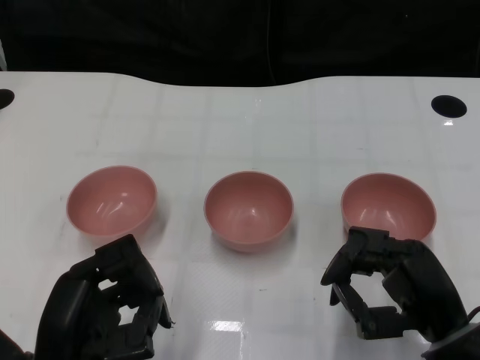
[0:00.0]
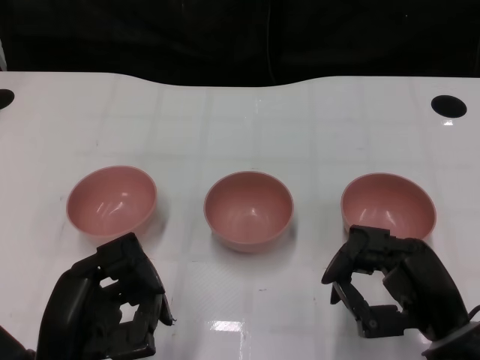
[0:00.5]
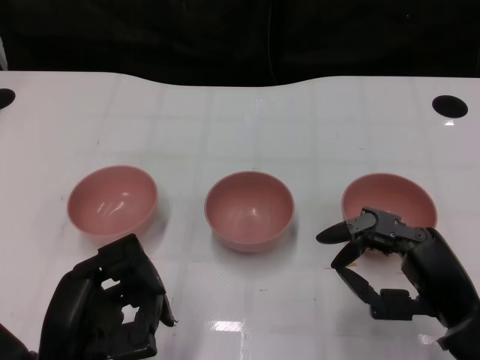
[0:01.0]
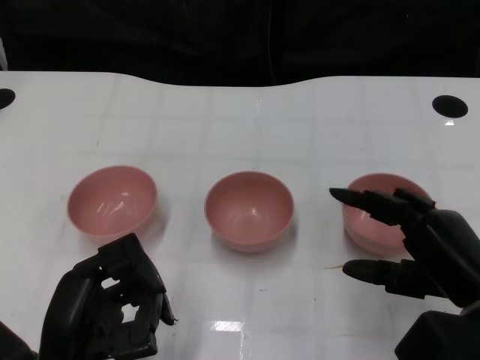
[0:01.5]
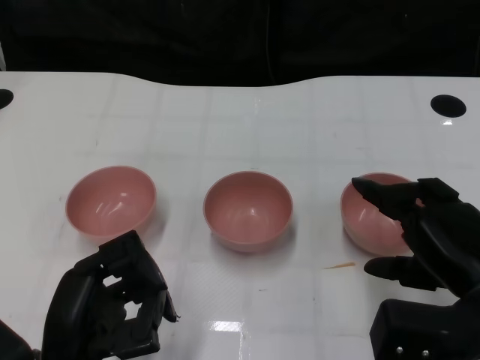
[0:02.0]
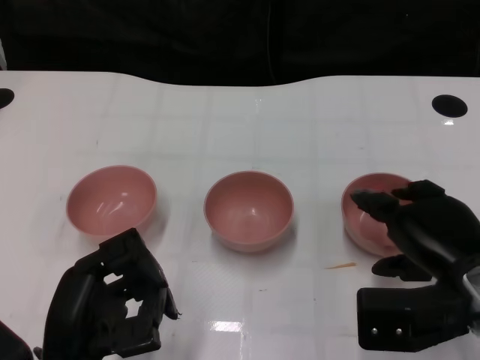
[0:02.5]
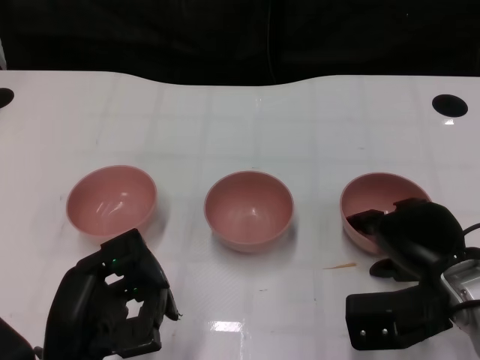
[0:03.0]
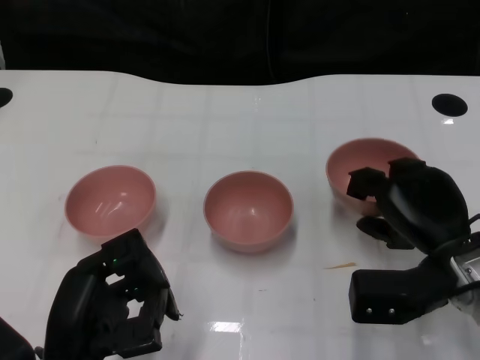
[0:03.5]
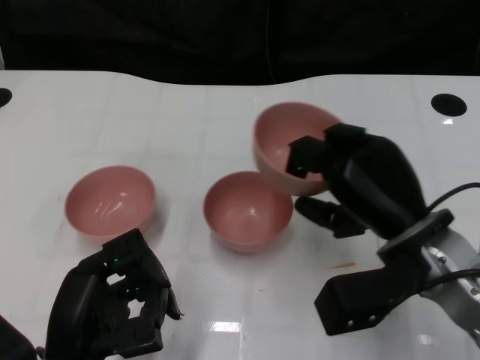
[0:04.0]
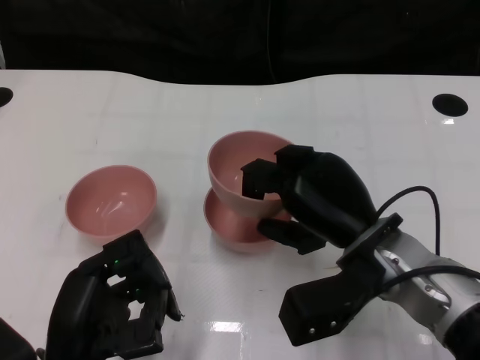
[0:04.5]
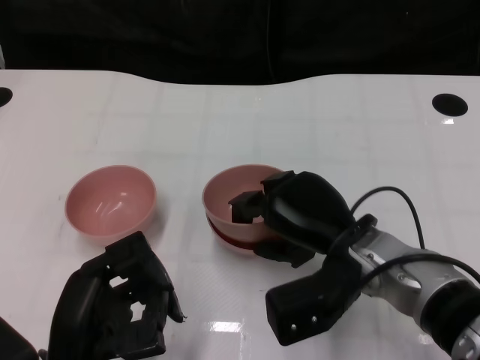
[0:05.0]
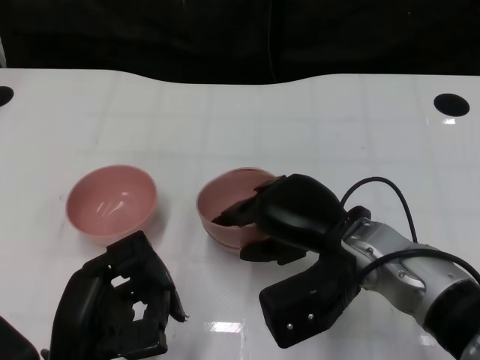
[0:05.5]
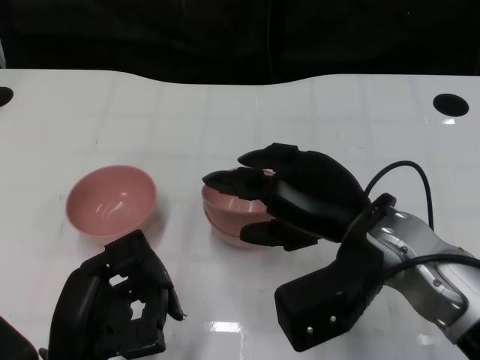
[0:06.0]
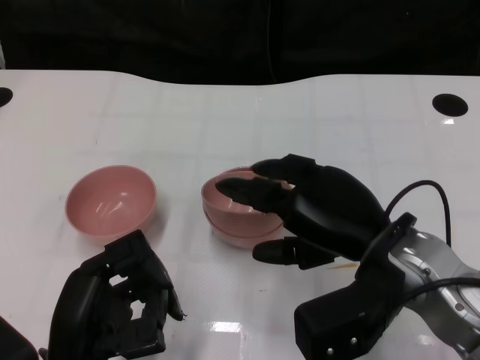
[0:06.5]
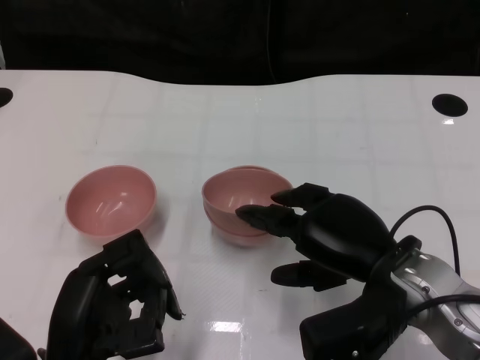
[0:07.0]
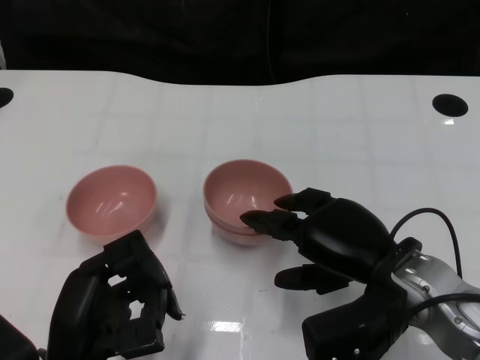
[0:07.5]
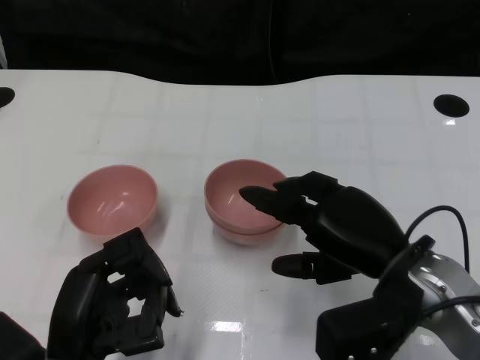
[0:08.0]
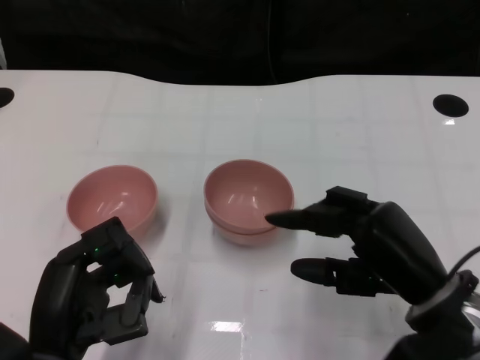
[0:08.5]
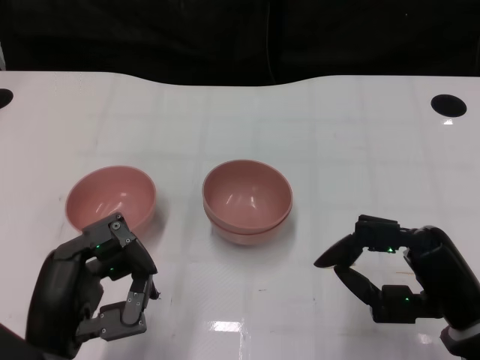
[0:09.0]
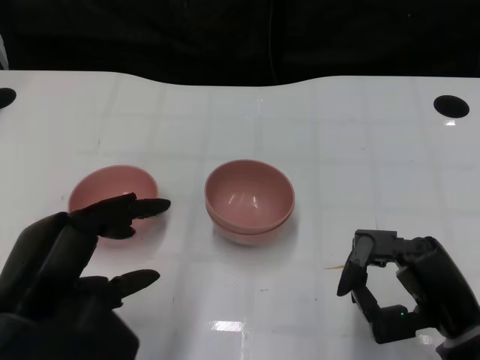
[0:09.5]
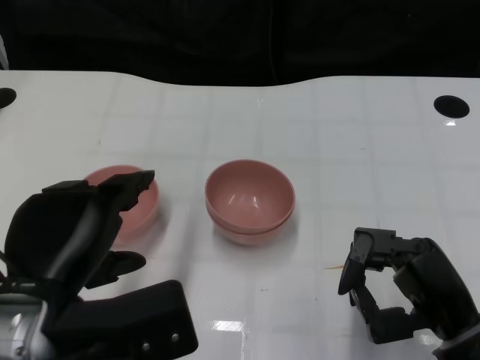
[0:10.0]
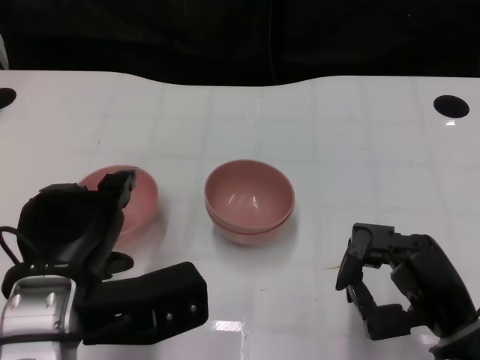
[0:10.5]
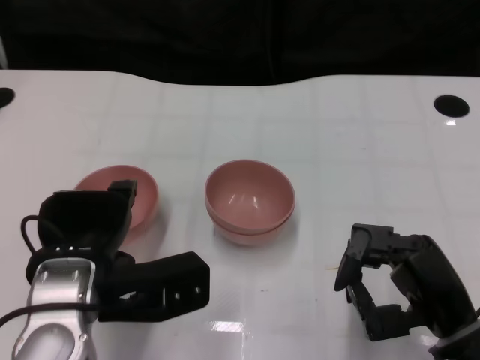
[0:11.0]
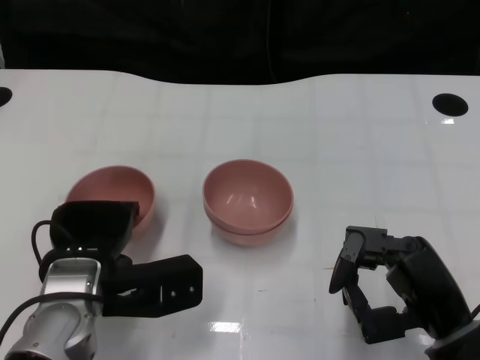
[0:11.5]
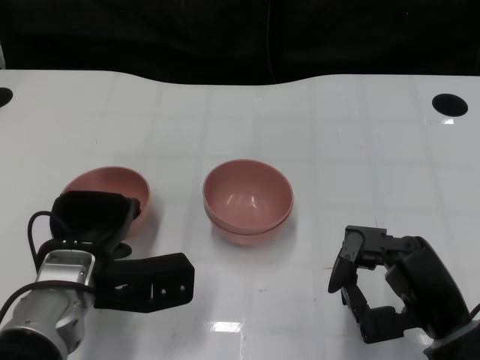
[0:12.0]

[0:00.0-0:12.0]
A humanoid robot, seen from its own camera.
Task of the whole recording: Pick up the bowl on one side of the table and place it on top of the middle bowl, then pick up the bowl on the other side of the table and place it on top of the middle bowls.
Step, 0:01.0 to 0:03.0: Grasp the bowl on the right with the right gripper.
Step, 0:04.0 to 0:06.5: Place the bowl on the right onto the bowl in the middle with right gripper.
0:02.0 to 0:04.0: The right hand shifts approximately 10 cm to the left and forward.
0:04.0 to 0:06.0: The right hand shifts by roughly 5 cm.
0:06.0 to 0:08.0: The right hand ends up some 5 cm from where it was.
0:08.0 to 0:10.0: The left hand heads upward, covering some 10 cm. The right hand travels backward and to the right by roughly 10 cm.
0:10.0 to 0:12.0: The left hand moves downward and forward, roughly 15 cm.

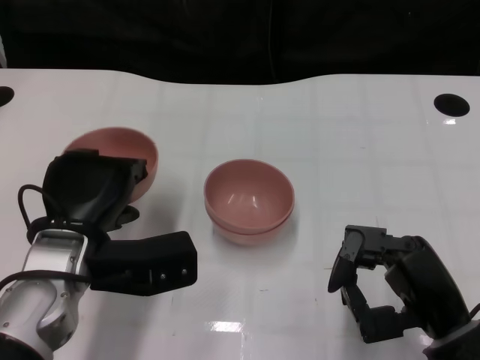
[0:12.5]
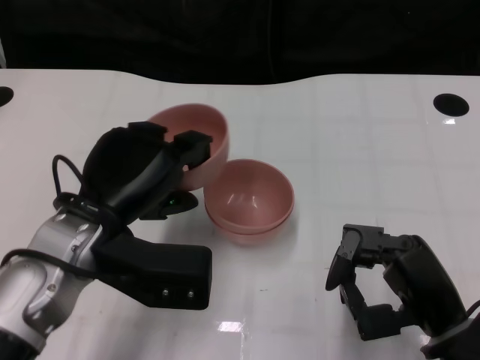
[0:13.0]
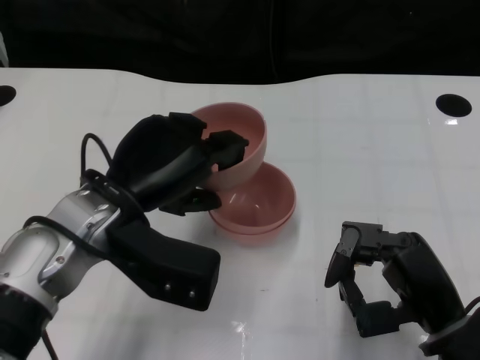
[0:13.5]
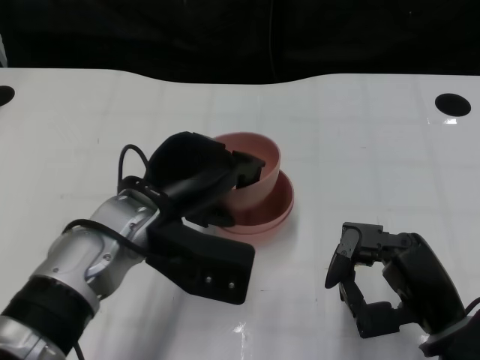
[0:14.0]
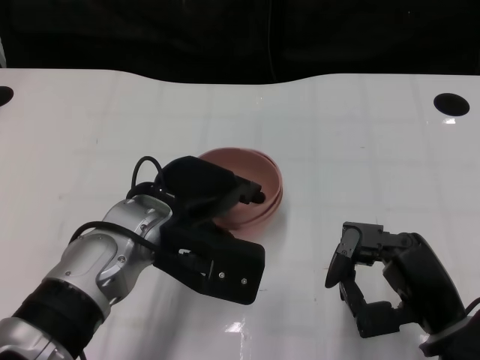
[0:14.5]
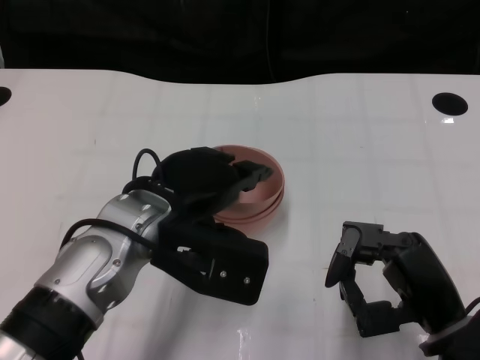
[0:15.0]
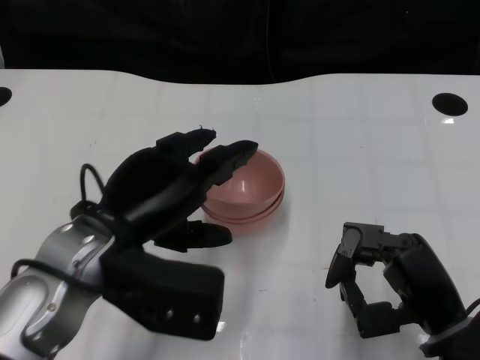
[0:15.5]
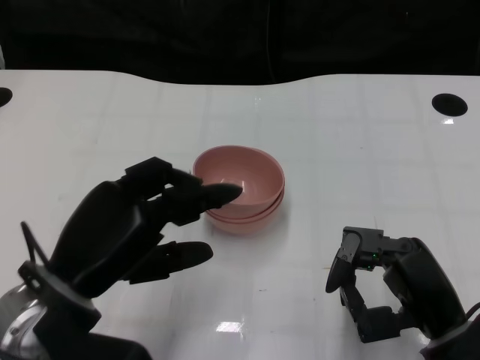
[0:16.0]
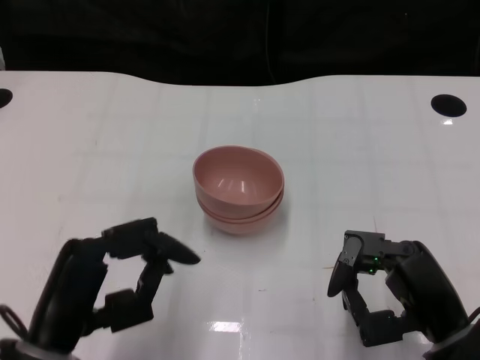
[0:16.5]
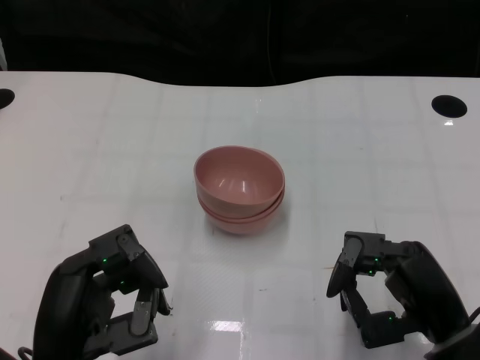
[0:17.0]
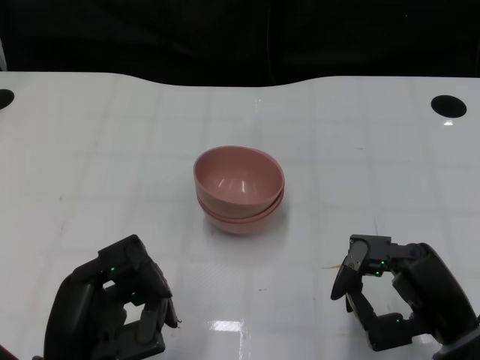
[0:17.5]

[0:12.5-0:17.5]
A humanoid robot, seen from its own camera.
Task of the whole recording: Pick up the bowl on one side of the table and place it on top of the middle bowl, then pick up the bowl on the other side of the table and place it on top of the middle bowls.
Step, 0:12.5 to 0:15.5: Place the bowl on the left onto the bowl in the middle with left gripper.
0:12.5 to 0:15.0: The left hand heads to the right, covering roughly 5 cm.
0:15.0 to 0:17.5: The left hand is displaced backward, to the left and downward by roughly 15 cm.

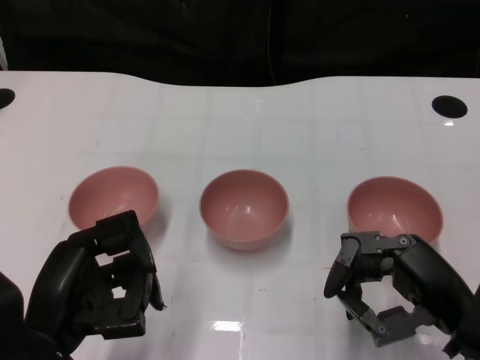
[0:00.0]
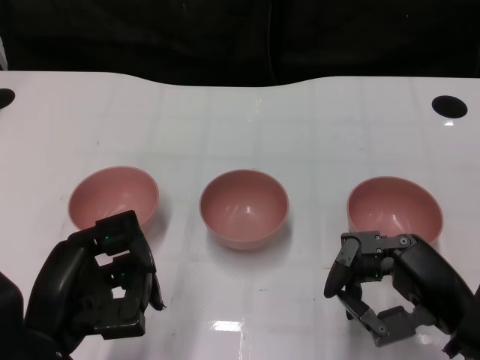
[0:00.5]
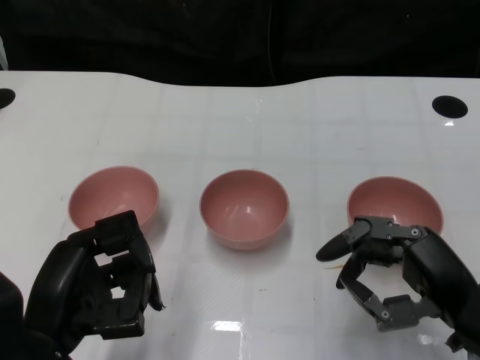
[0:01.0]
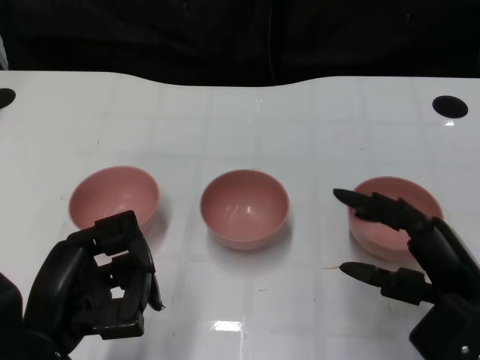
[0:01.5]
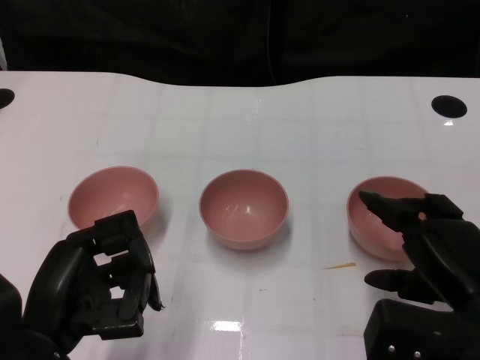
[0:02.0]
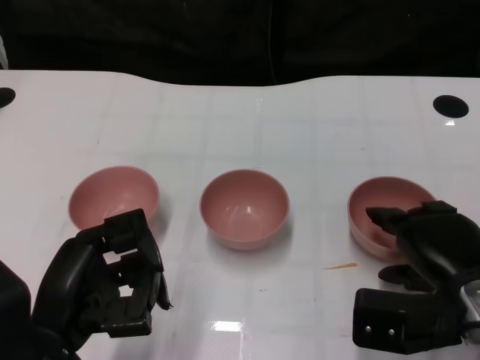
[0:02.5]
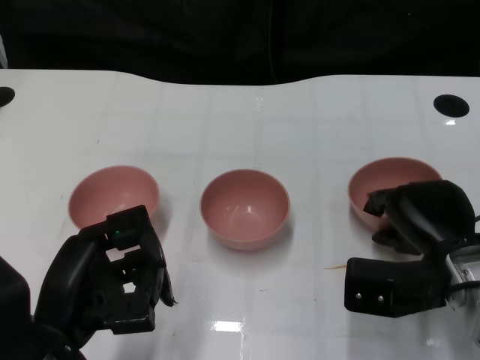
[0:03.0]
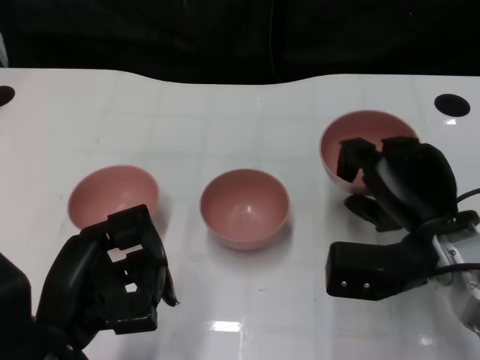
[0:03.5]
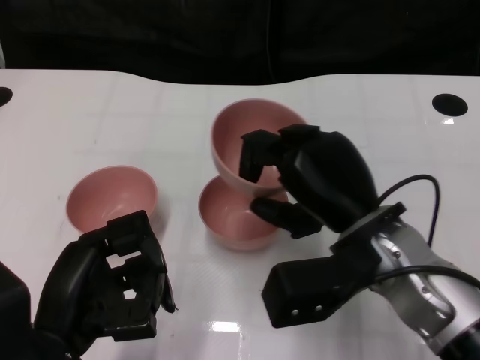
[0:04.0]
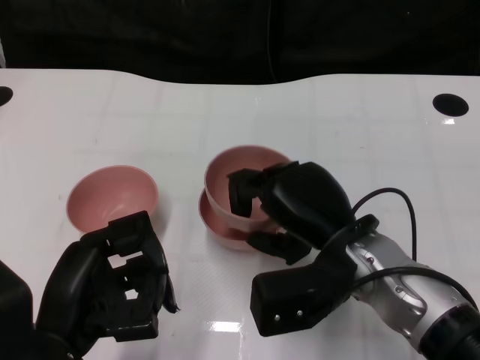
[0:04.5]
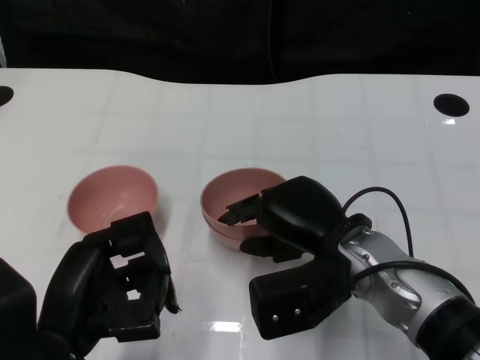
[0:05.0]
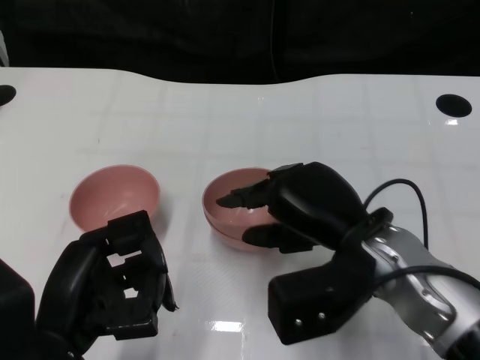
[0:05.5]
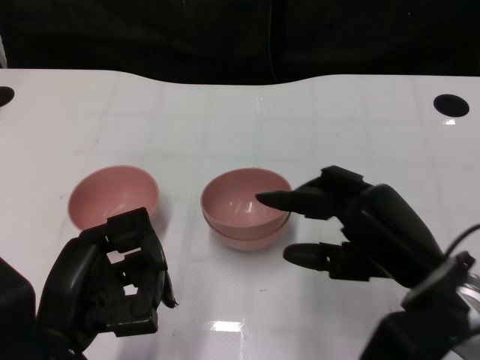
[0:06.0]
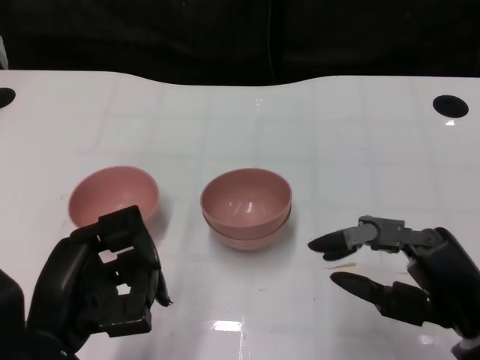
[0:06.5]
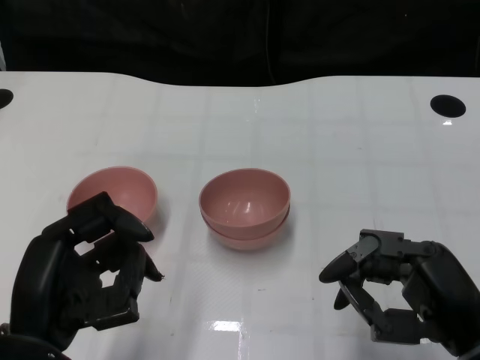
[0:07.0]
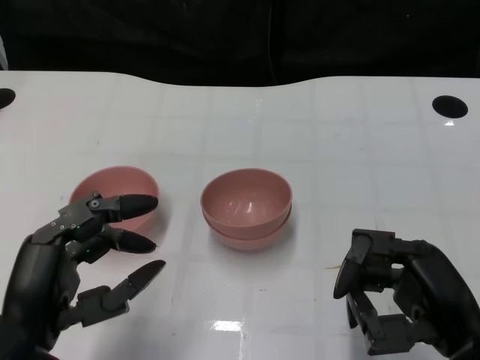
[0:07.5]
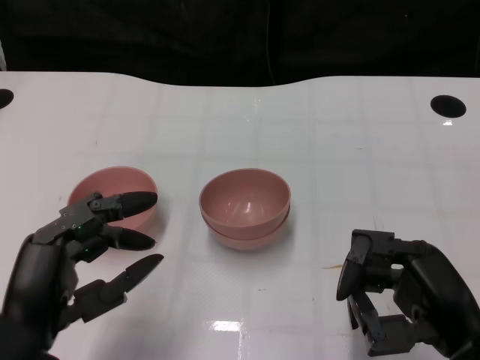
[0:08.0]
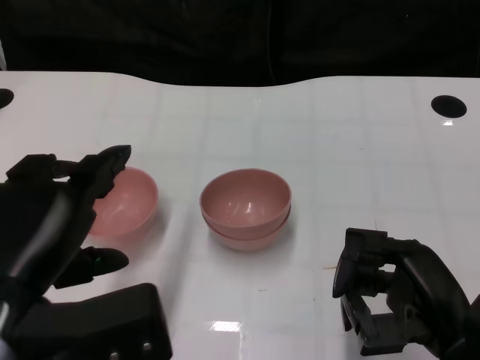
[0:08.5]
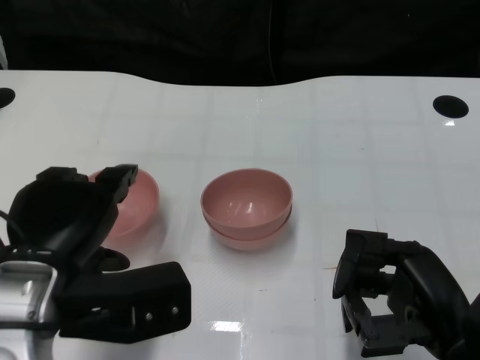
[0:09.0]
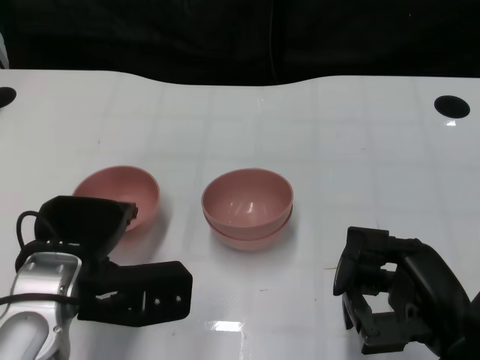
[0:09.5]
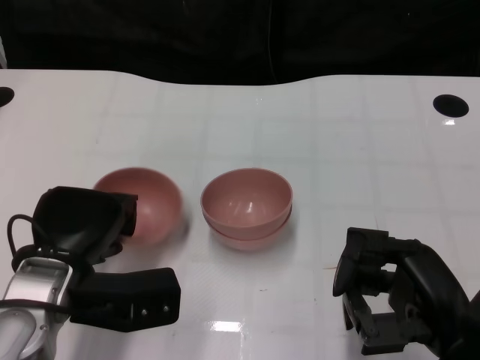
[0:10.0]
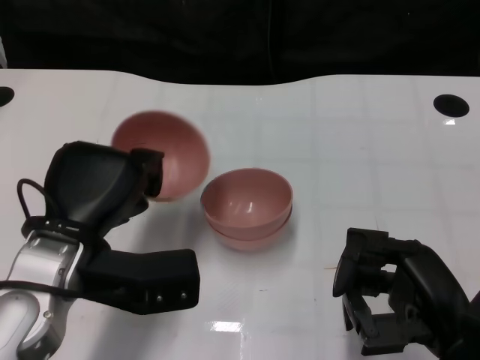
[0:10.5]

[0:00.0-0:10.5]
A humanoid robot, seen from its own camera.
Task of the whole recording: Pick up the bowl on one side of the table and place it on top of the middle bowl, then pick up the bowl on the other side of the table and place it on top of the middle bowls.
Step, 0:01.0 to 0:03.0: Grasp the bowl on the right with the right gripper.
Step, 0:03.5 to 0:06.0: Place the bowl on the right onto the bowl in the middle with right gripper.
Step, 0:06.5 to 0:10.0: Grasp the bowl on the left with the left gripper.
0:02.0 to 0:04.0: The right hand moves to the left and forward, approximately 10 cm.
0:04.0 to 0:06.5: The right hand shifts approximately 15 cm to the right and backward.
0:06.5 to 0:08.5: The left hand moves upward, roughly 5 cm.
0:08.5 to 0:10.5: The left hand moves forward, approximately 10 cm.
